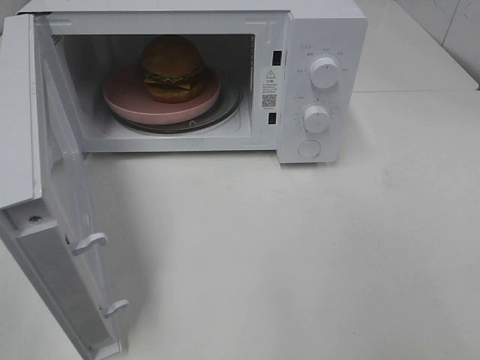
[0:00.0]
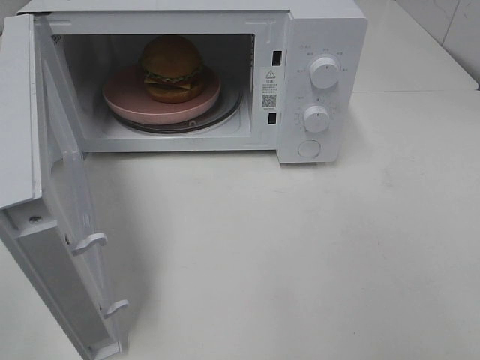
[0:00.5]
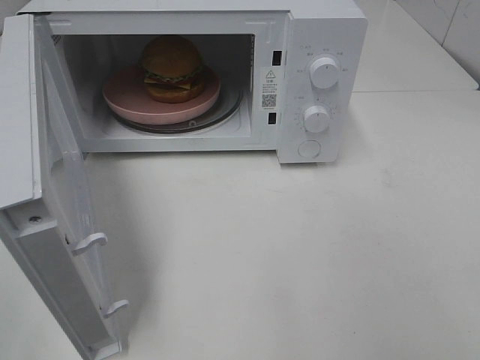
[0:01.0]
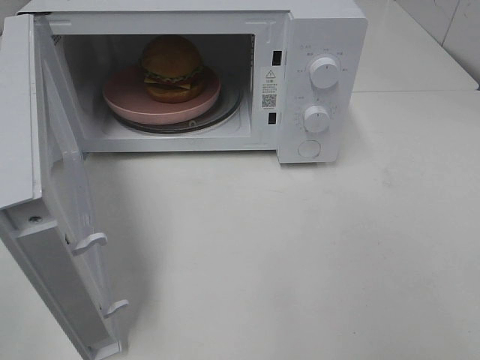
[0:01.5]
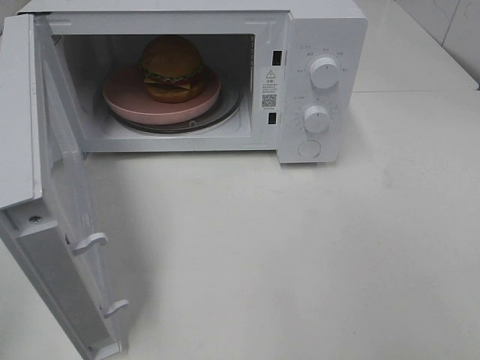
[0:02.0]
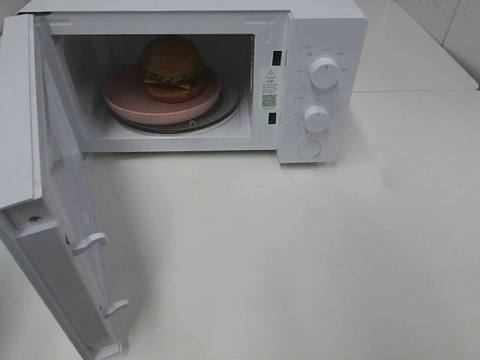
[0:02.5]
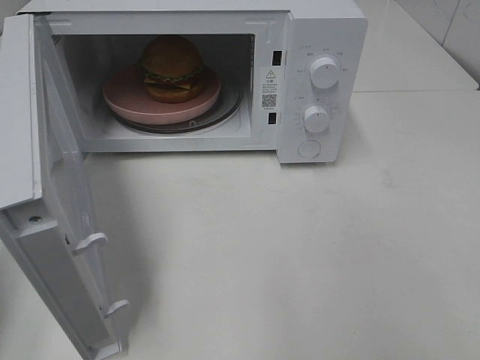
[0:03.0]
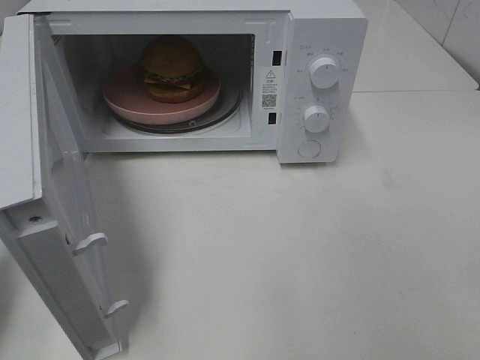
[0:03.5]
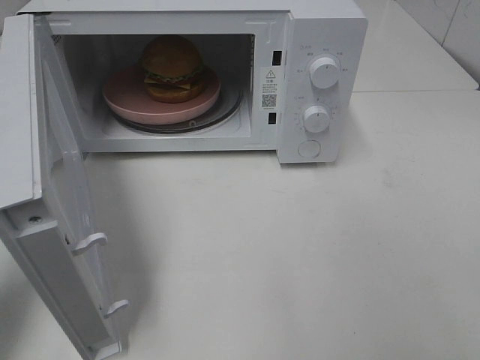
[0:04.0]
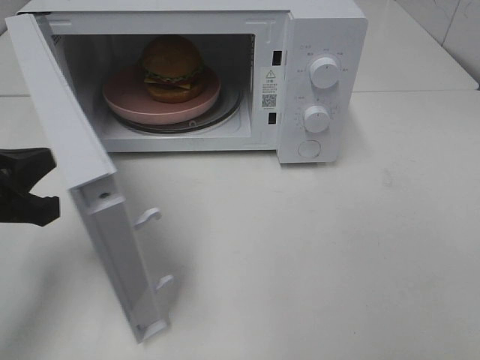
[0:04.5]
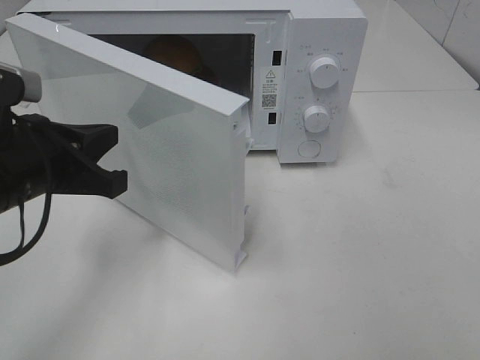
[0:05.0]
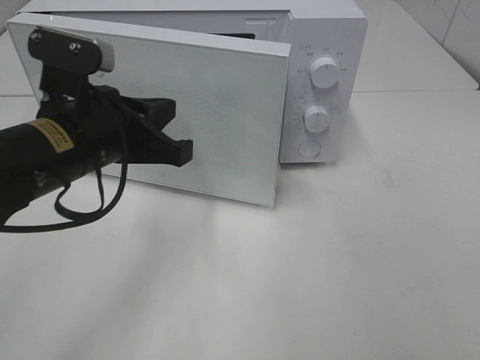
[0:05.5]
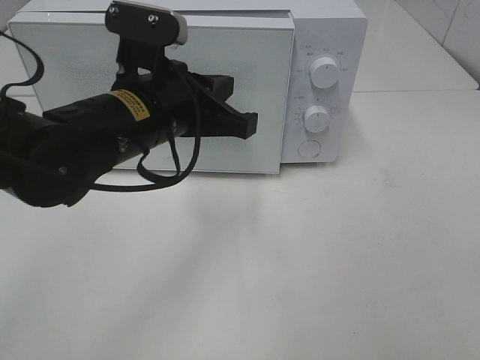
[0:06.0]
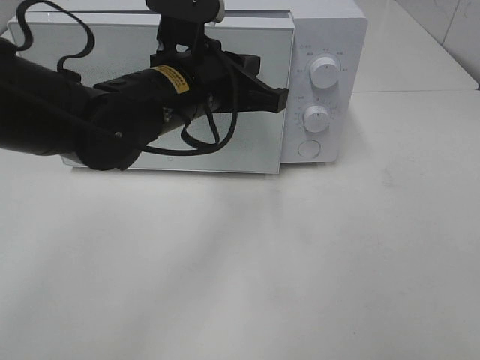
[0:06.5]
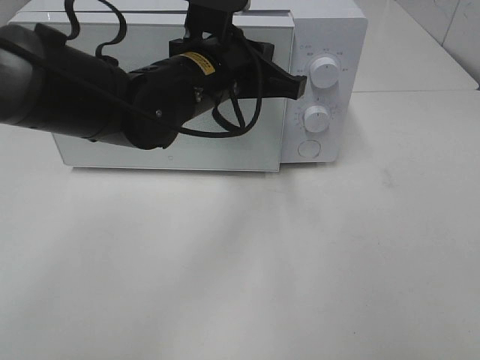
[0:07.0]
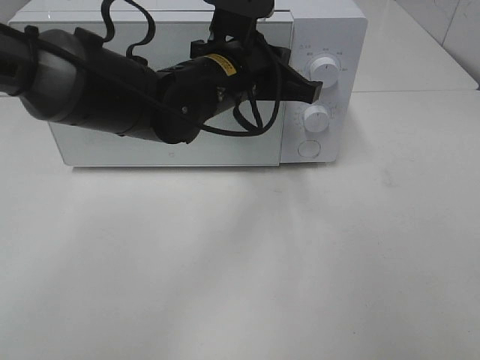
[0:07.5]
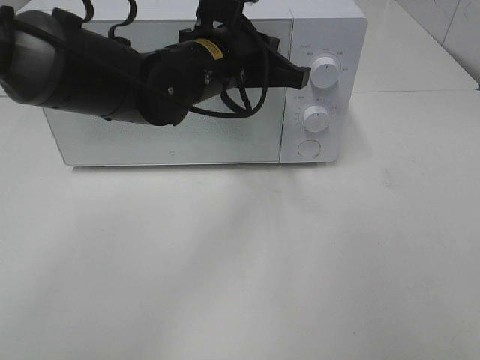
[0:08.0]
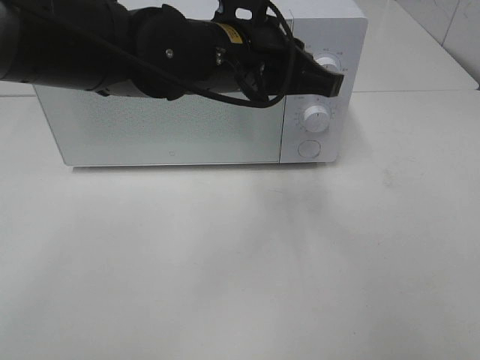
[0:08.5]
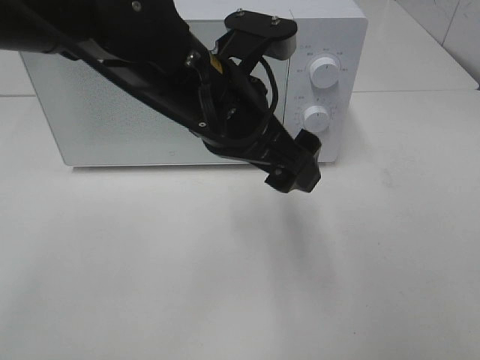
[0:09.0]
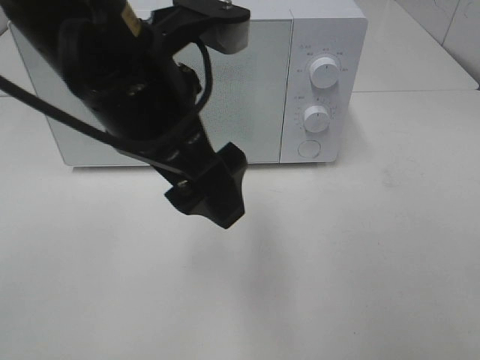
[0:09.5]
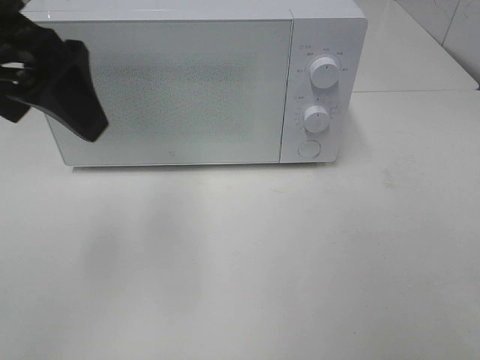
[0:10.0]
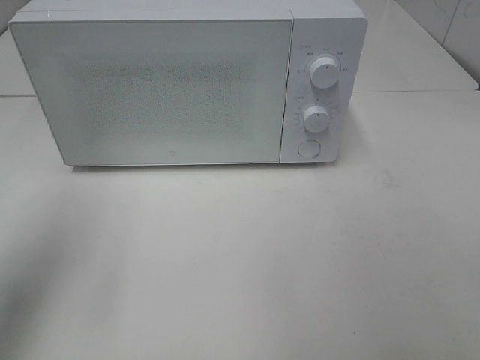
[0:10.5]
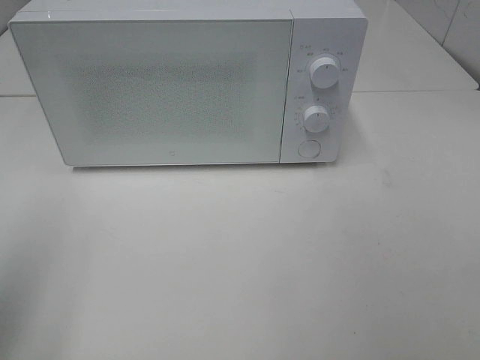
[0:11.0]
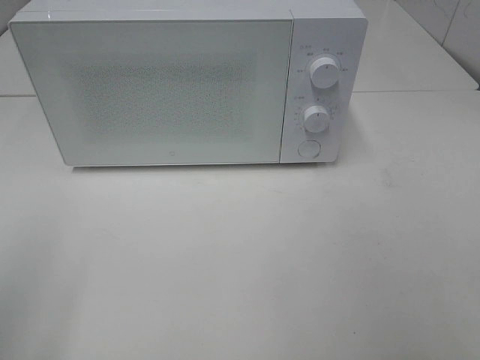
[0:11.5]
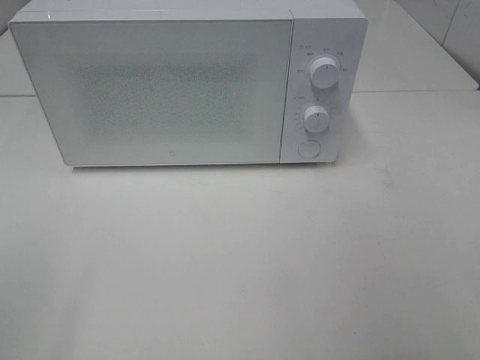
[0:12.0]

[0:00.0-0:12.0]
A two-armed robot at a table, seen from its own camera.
Task of the whole recording: Heat the burger.
Step, 0:00.0 to 0:08.0: Left hand: close the microwave door.
0:02.0 to 0:04.0: The left gripper travels forward and downward by some 20 cm.
0:04.0 to 0:06.0: The left gripper is displaced to the right and forward by roughly 25 cm.
0:06.0 to 0:08.0: The left gripper is displaced forward and to the right by approximately 10 cm.
0:08.0 to 0:10.0: The left gripper is displaced to the left, upward and backward by approximately 25 cm, and opens its fingers.
0:10.0 to 0:12.0: The left gripper goes about 25 cm backward and to the left.

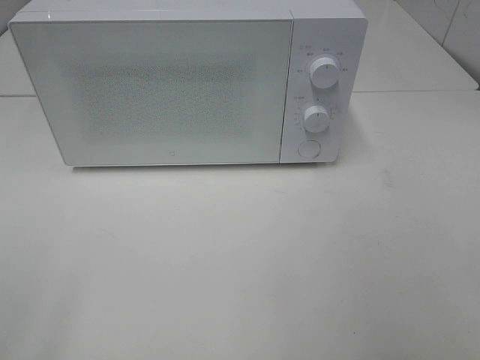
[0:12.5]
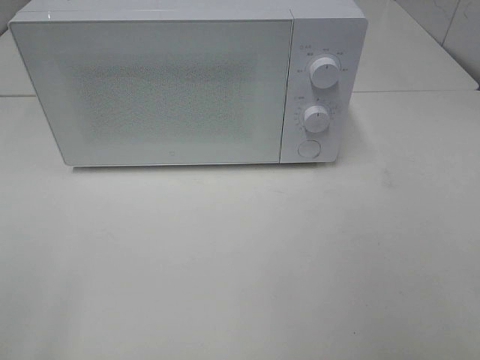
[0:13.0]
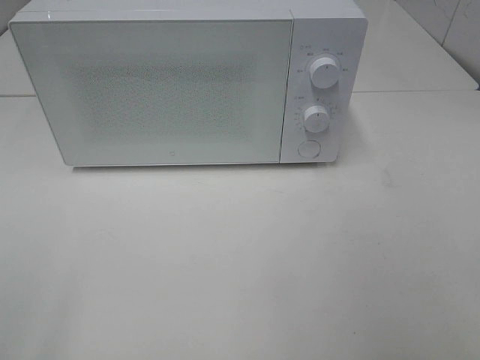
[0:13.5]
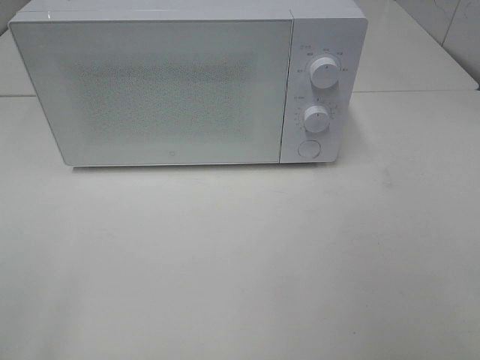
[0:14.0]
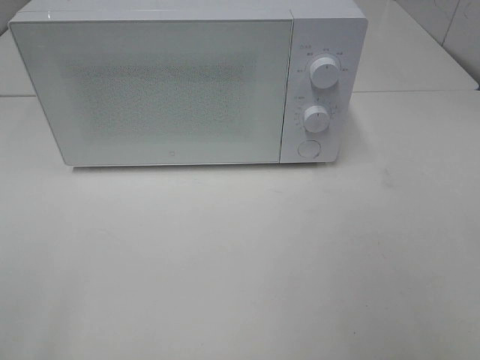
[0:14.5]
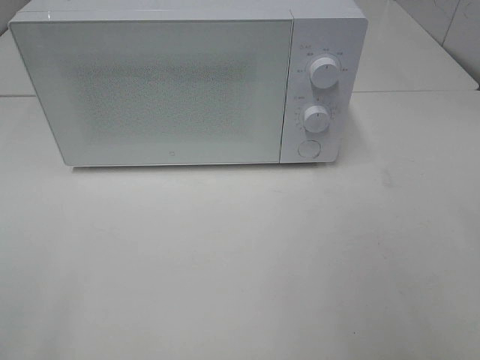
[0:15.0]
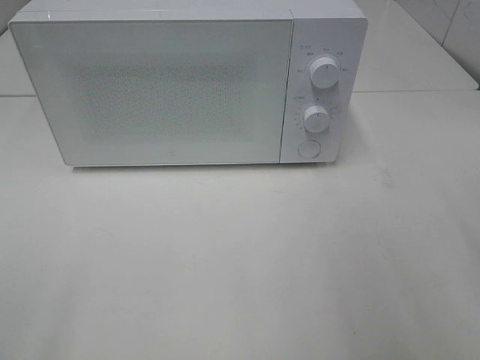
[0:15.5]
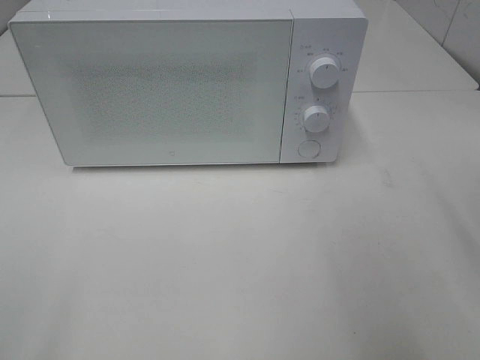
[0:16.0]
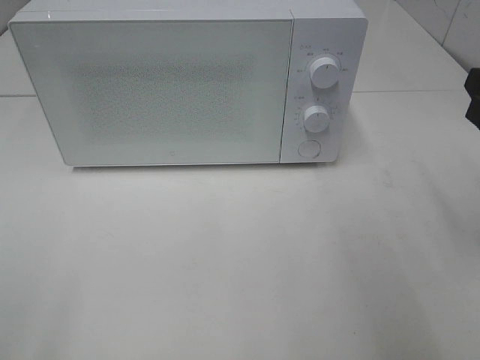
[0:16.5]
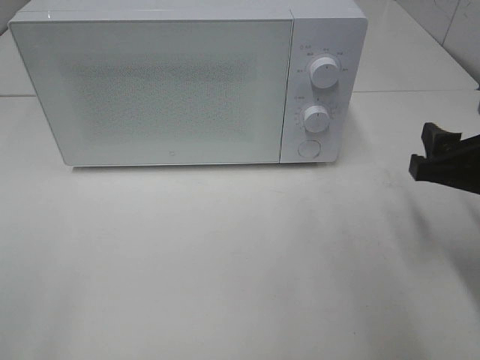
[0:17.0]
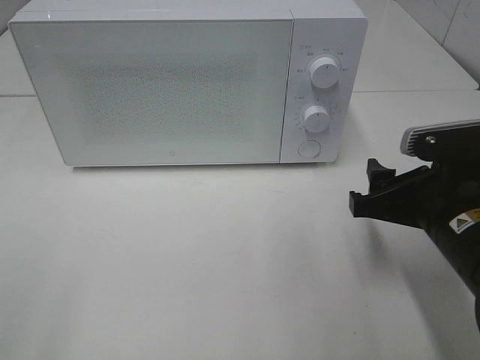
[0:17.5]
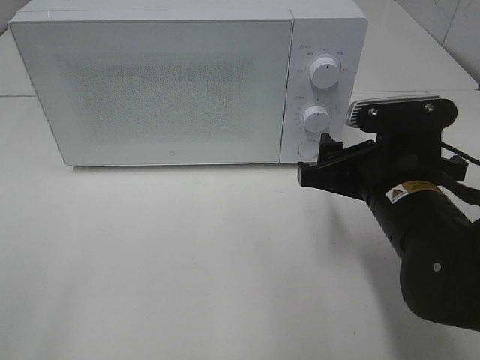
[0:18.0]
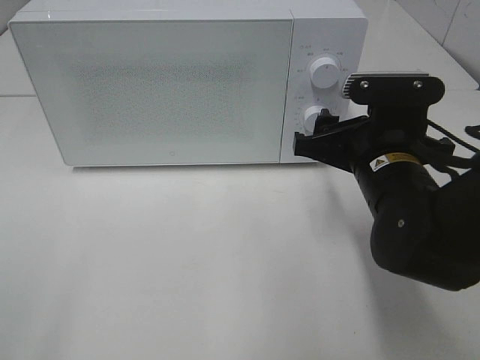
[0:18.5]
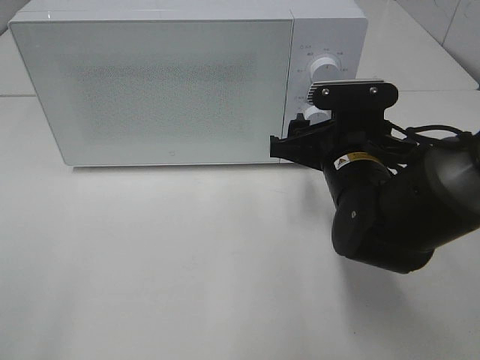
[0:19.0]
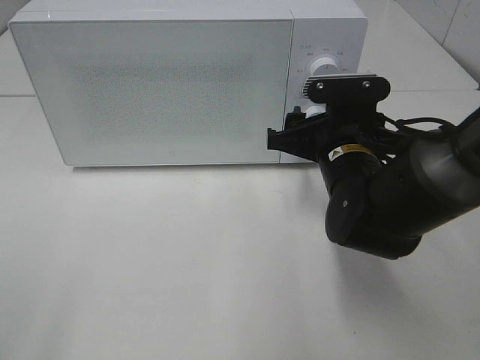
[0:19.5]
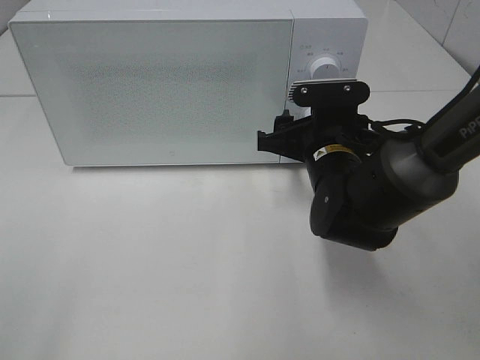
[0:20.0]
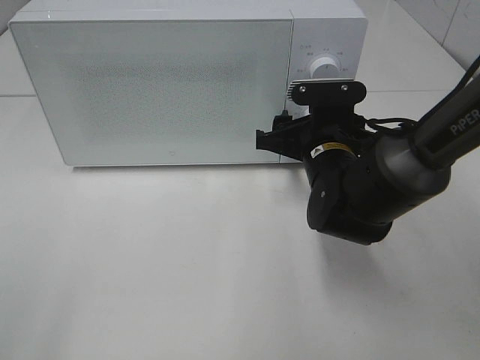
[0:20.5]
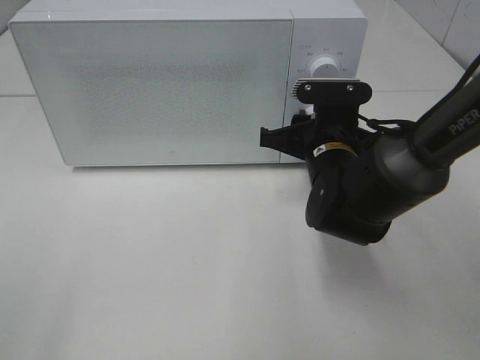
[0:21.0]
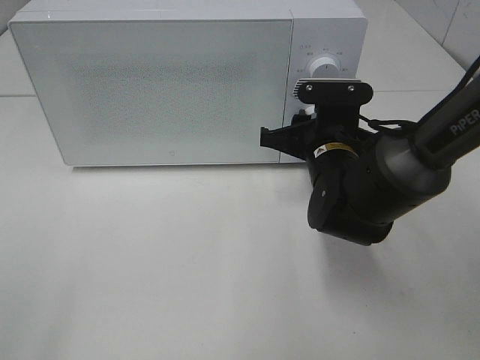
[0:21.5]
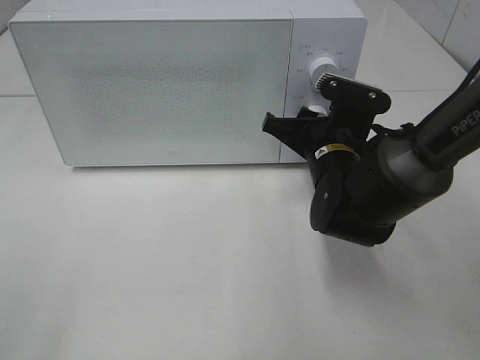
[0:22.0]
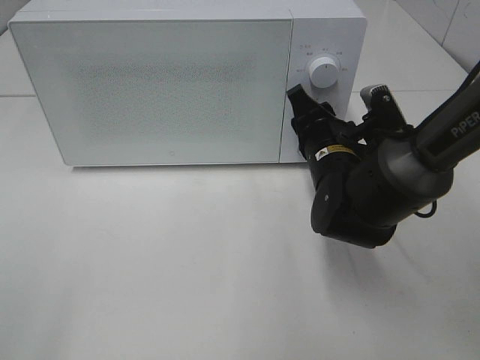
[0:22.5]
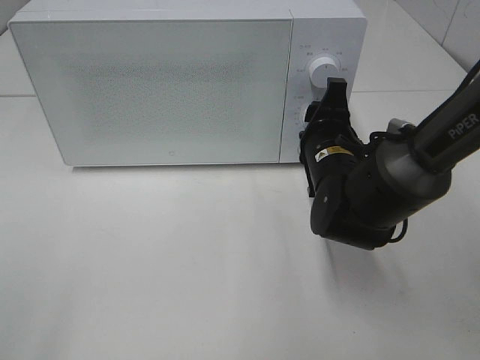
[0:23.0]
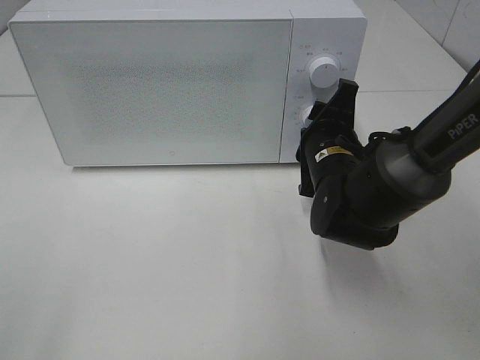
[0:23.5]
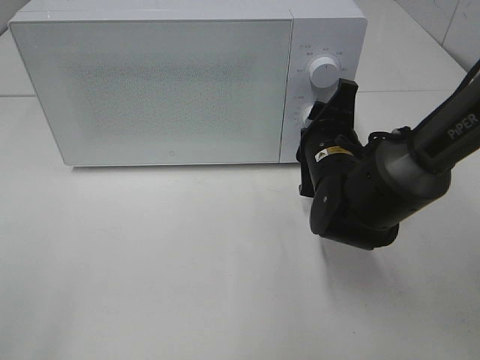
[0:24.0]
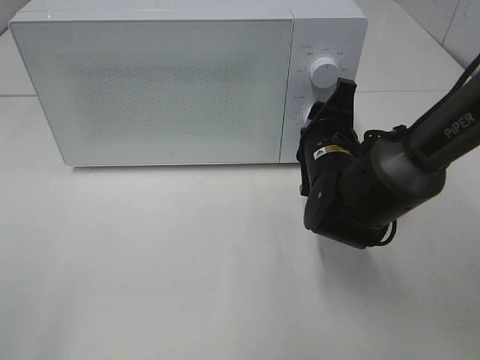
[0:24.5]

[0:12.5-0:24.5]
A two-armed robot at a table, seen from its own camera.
Task of the whole recording: Heat the burger.
0:16.5 to 0:18.5: The right gripper is displaced to the left, downward and forward by approximately 15 cm.
0:18.5 to 0:20.5: The right gripper moves forward, some 5 cm.

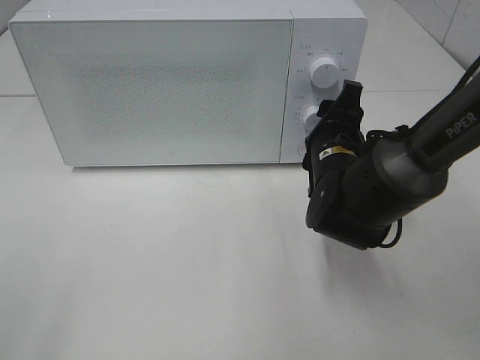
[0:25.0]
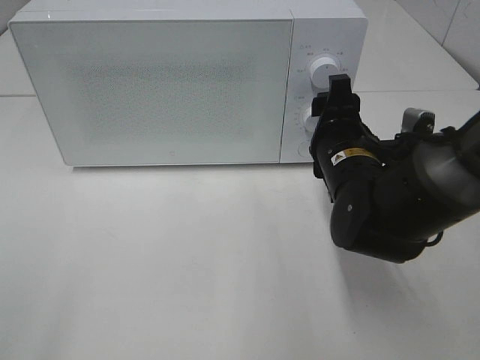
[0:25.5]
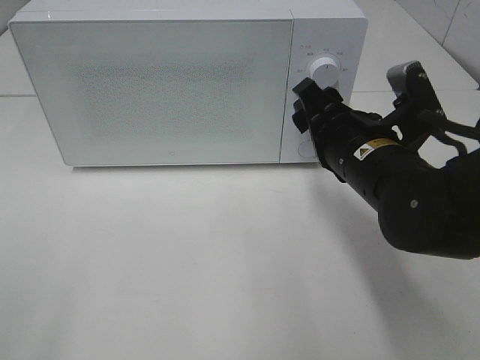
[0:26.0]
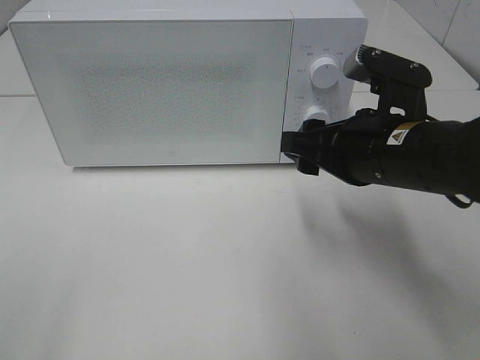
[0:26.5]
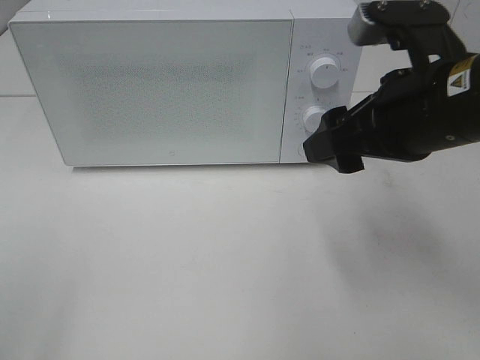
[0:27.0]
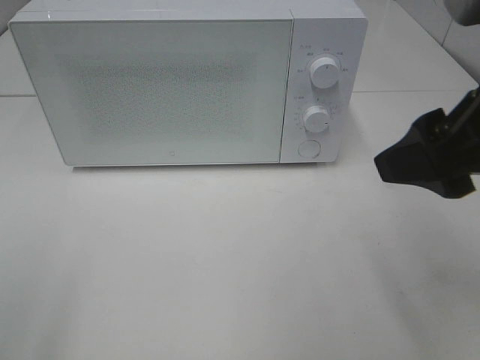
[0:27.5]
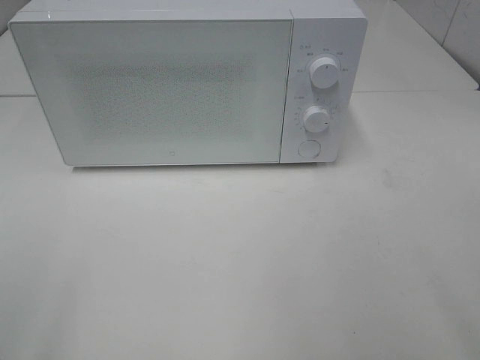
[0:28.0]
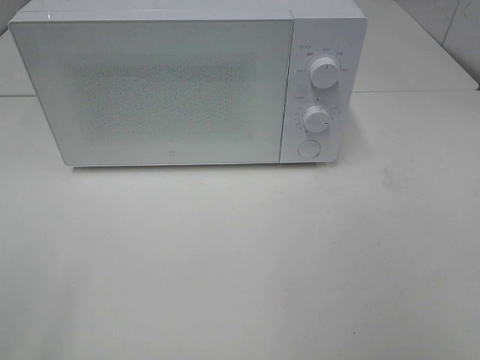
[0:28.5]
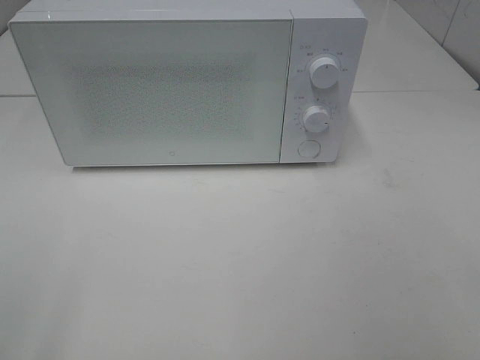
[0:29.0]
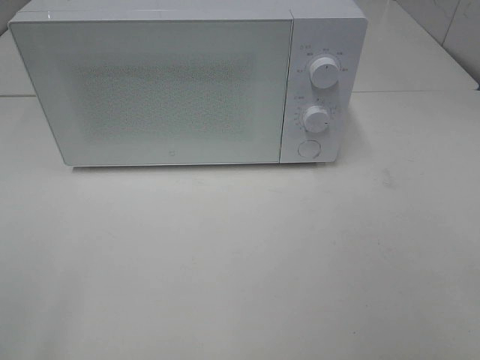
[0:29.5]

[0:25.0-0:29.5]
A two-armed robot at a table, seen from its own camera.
Task of the whole recording: Heat the burger.
0:25.0 to 0:27.0: The right gripper shifts about 20 cm upward and backward.
0:27.0 to 0:29.5: The right gripper shifts about 25 cm backward and to the right.
